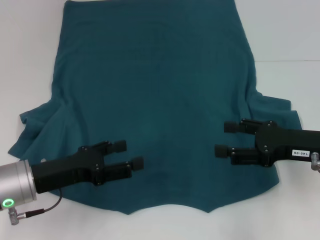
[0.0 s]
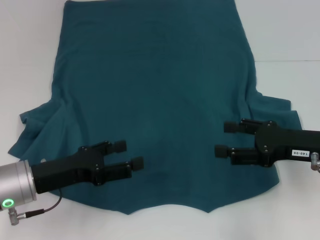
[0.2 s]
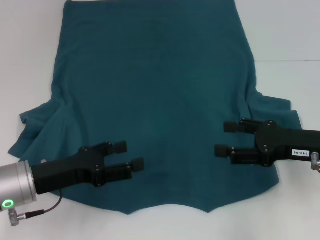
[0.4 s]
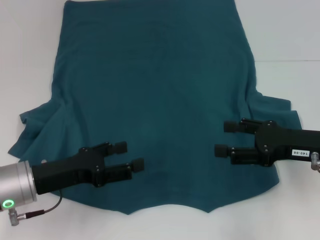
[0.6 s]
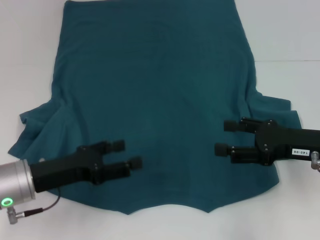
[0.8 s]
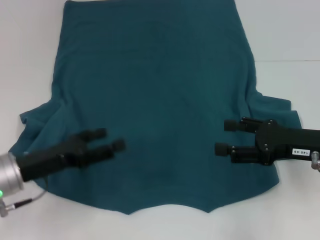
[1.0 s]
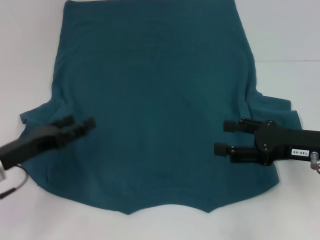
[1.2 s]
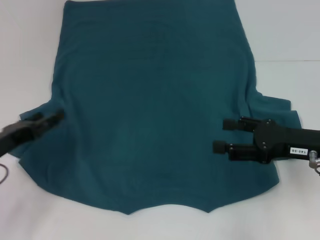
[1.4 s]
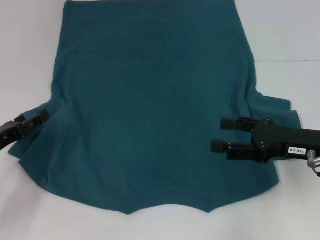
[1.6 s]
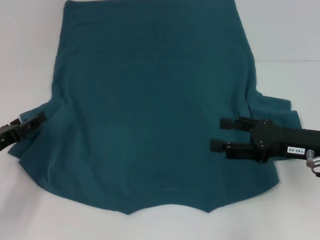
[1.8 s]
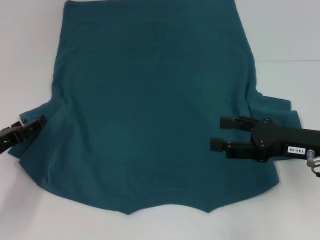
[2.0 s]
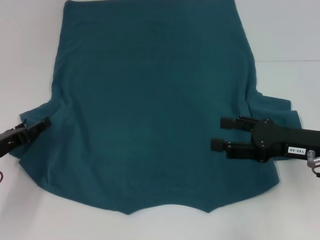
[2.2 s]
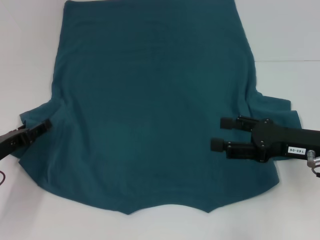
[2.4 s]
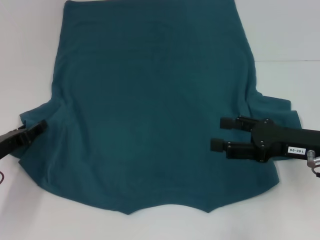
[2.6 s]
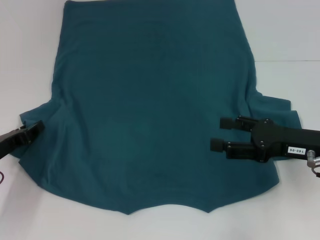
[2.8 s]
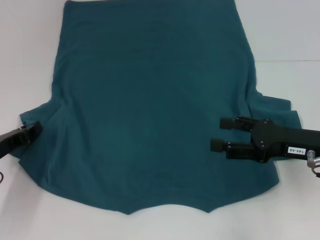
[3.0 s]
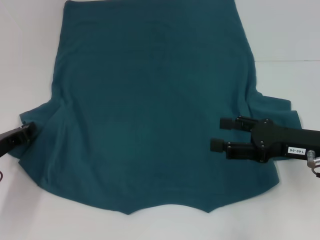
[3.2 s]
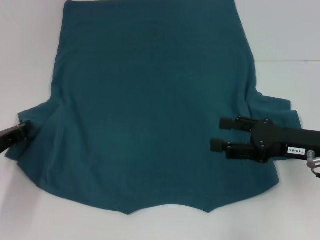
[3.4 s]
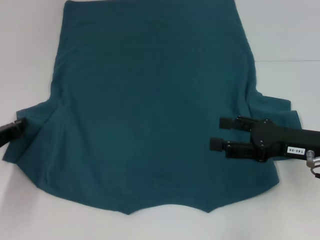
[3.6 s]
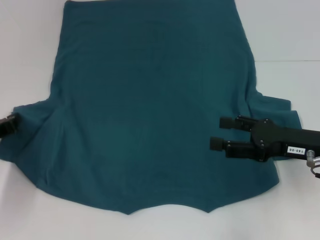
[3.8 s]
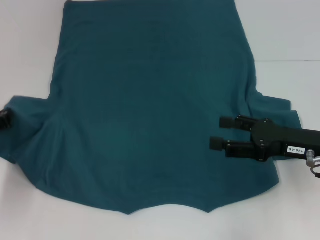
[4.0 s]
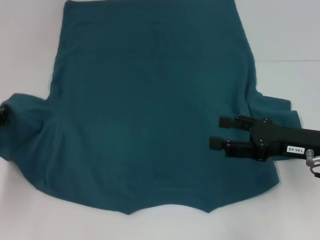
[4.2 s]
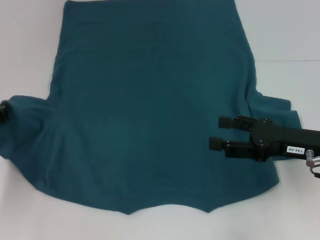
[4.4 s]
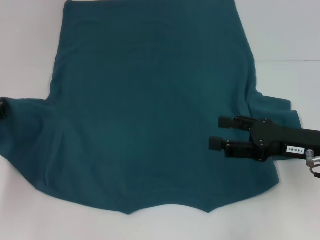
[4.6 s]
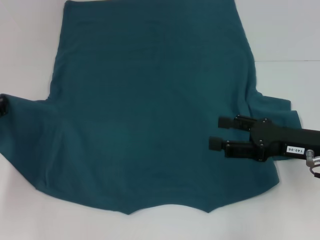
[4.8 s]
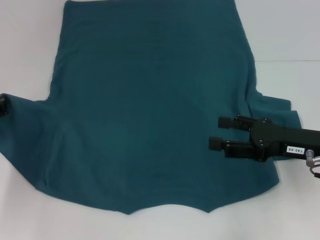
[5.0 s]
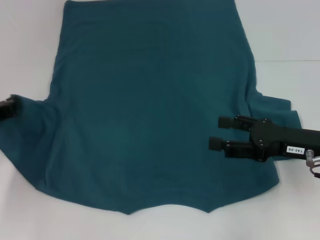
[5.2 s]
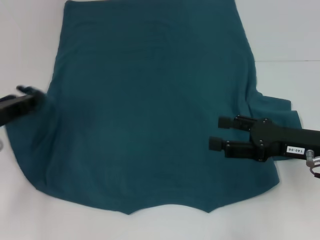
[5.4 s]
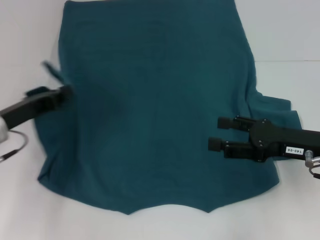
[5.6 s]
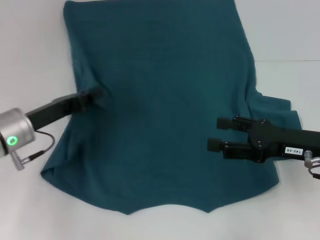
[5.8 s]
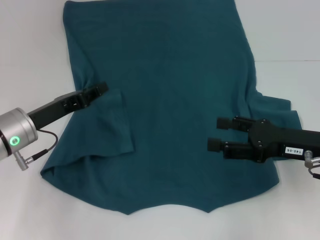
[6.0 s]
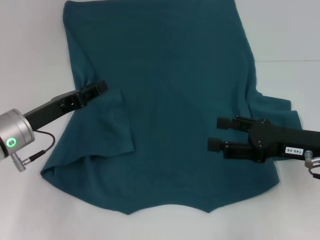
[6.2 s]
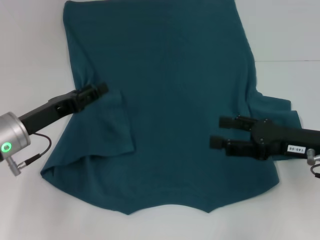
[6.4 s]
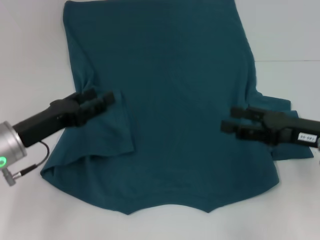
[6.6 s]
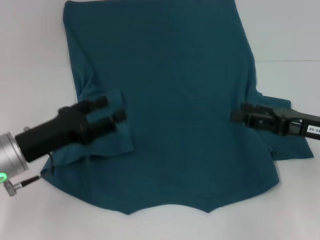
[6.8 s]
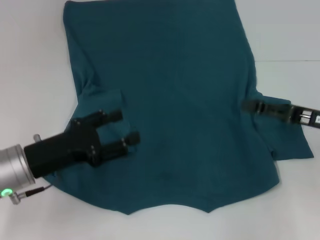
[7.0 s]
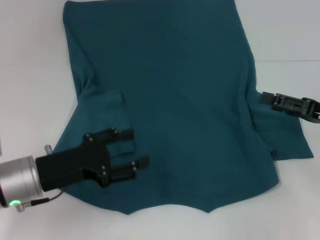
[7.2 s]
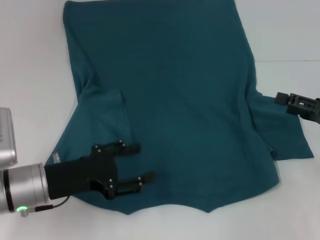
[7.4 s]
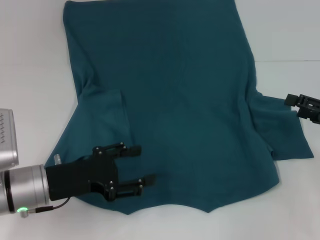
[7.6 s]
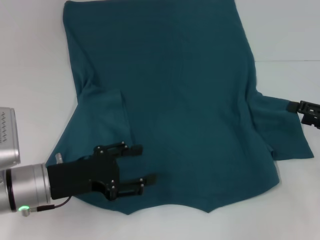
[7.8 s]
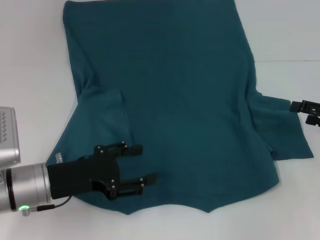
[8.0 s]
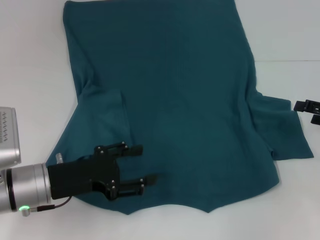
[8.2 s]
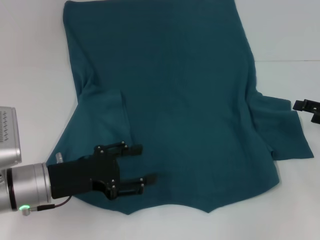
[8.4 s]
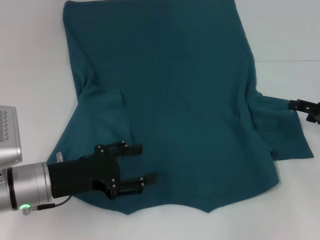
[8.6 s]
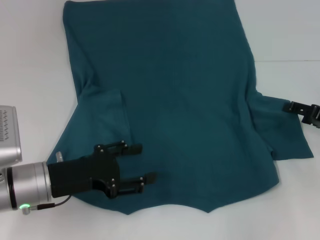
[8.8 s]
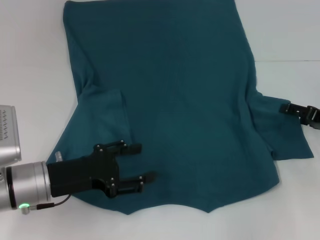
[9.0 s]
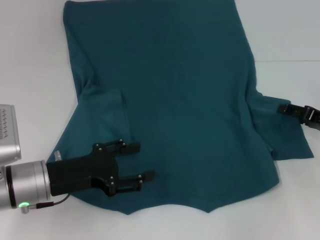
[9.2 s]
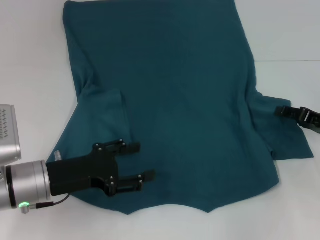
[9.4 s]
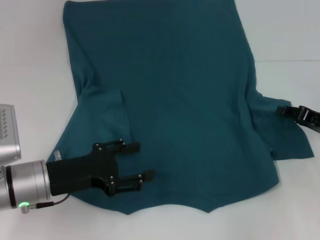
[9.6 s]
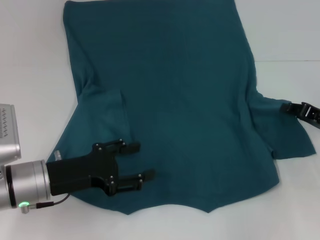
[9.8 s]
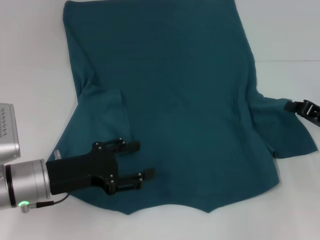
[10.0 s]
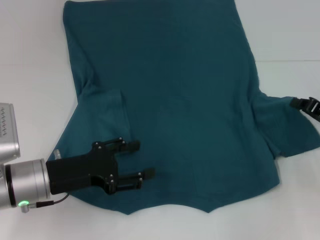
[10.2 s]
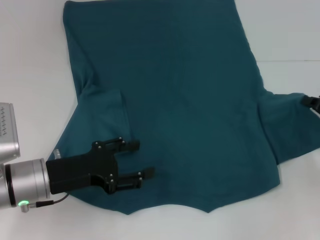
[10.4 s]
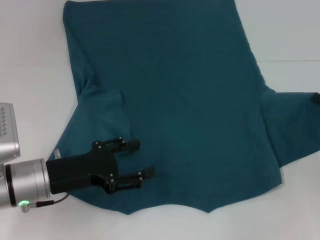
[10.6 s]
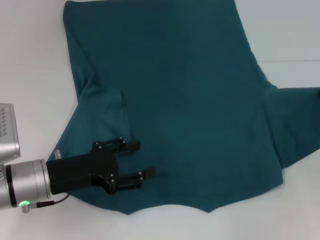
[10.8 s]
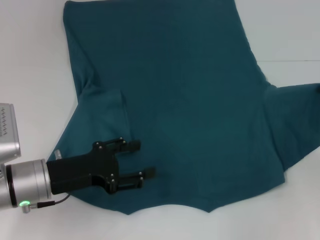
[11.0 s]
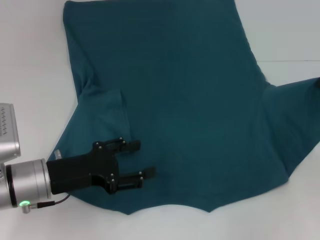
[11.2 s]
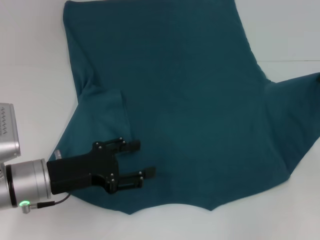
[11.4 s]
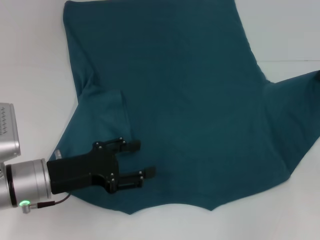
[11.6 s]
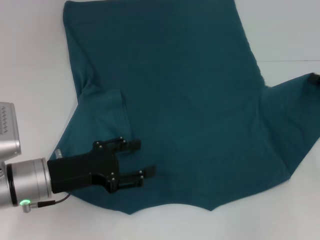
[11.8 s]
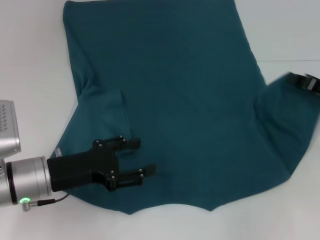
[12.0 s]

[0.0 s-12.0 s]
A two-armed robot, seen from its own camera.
Step, 0.0 to 6.2 s: Fold the bottom left sleeve with your left hand.
0.0 to 1.6 s: The left gripper goes roughly 10 cm to the left.
1.6 to 3.0 s: The left gripper closes its fingers.
3.0 to 4.4 s: The left gripper closes its fingers.
4.4 to 6.0 s: The left gripper shifts roughly 10 cm to the right.
6.0 to 7.6 s: The left gripper travels backward by some 5 cm, and opens its fingers, while the right gripper shifts roughly 10 cm to the right.
7.6 to 9.0 s: The grippers move only a little.
9.0 to 10.4 s: The right gripper closes its fingers.
10.4 to 12.0 s: The right gripper shifts by roughly 5 cm.

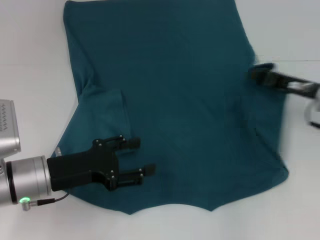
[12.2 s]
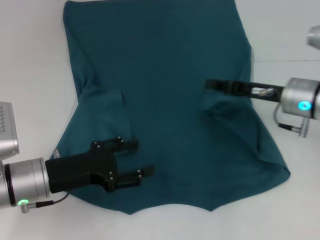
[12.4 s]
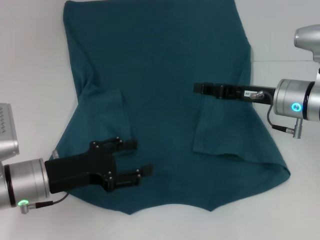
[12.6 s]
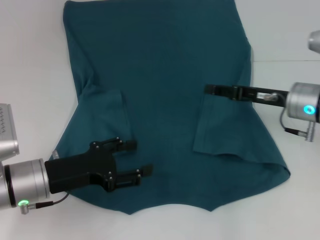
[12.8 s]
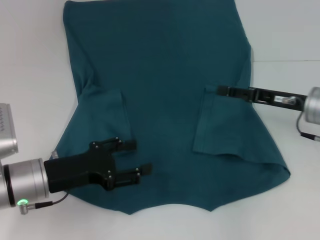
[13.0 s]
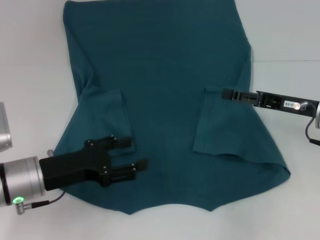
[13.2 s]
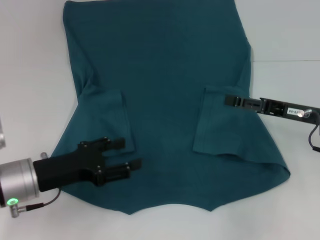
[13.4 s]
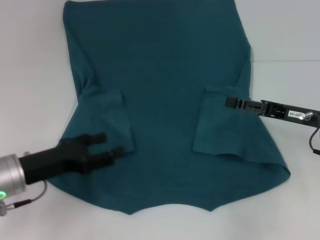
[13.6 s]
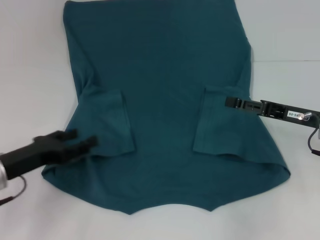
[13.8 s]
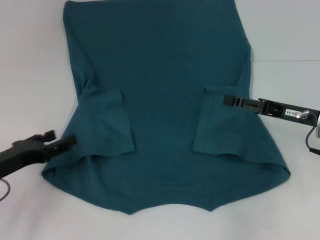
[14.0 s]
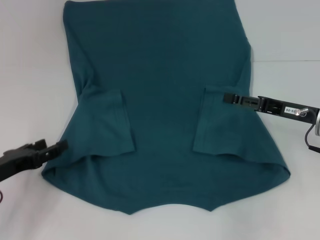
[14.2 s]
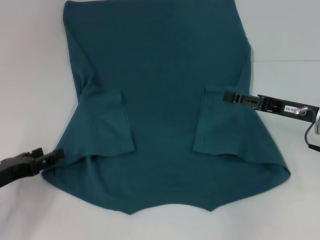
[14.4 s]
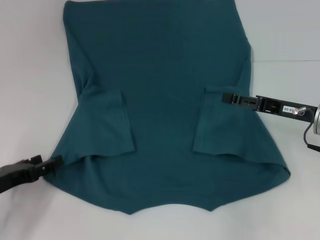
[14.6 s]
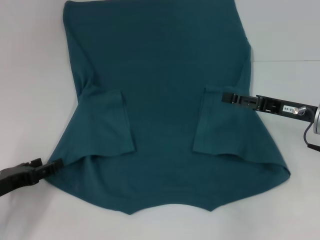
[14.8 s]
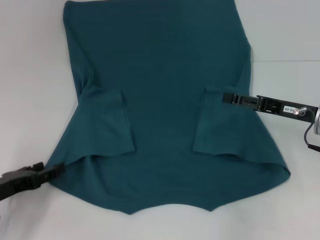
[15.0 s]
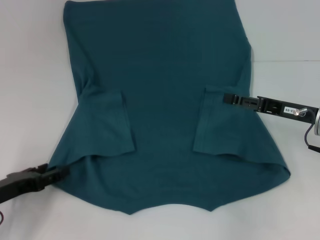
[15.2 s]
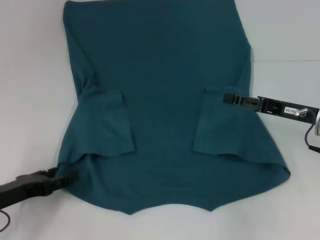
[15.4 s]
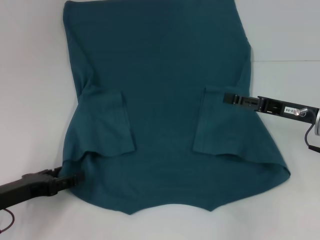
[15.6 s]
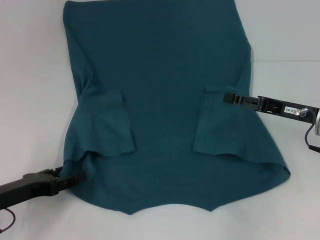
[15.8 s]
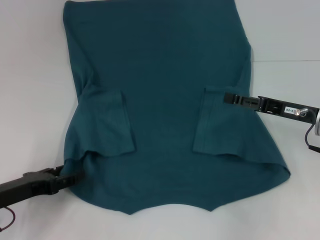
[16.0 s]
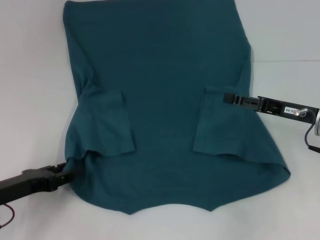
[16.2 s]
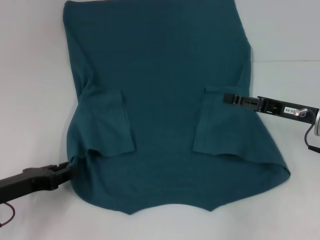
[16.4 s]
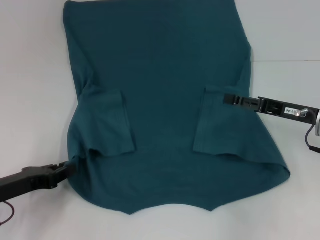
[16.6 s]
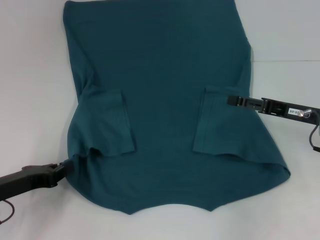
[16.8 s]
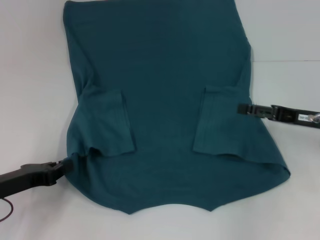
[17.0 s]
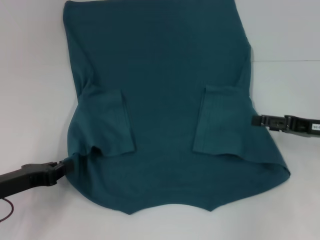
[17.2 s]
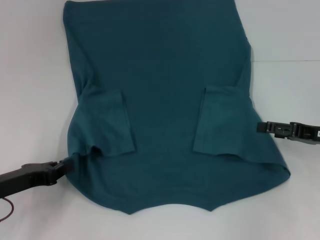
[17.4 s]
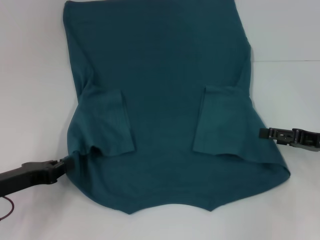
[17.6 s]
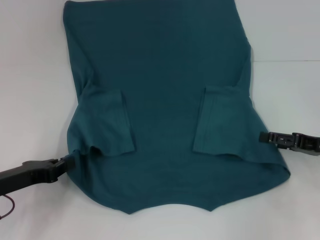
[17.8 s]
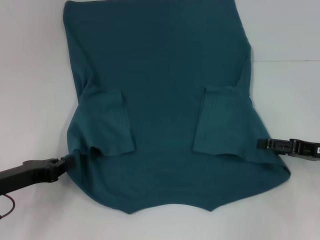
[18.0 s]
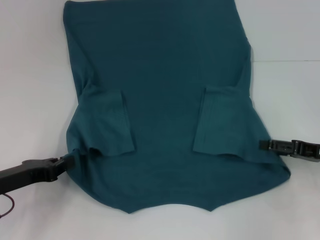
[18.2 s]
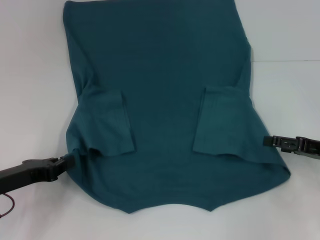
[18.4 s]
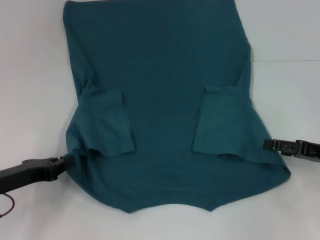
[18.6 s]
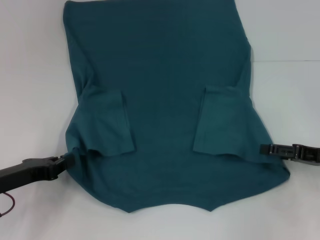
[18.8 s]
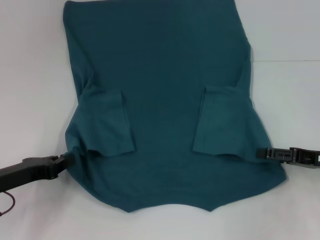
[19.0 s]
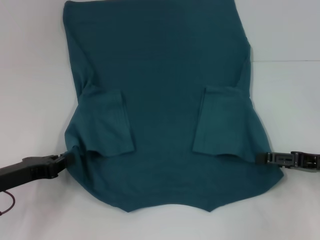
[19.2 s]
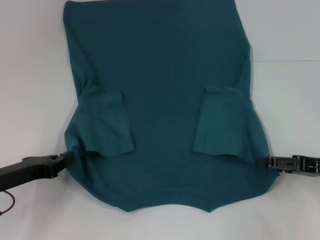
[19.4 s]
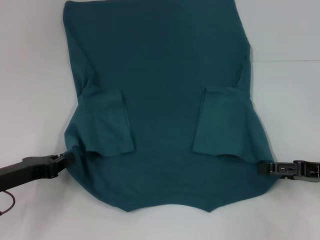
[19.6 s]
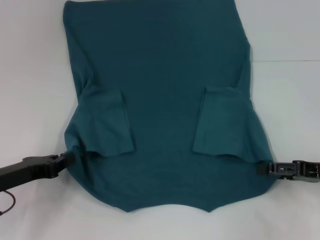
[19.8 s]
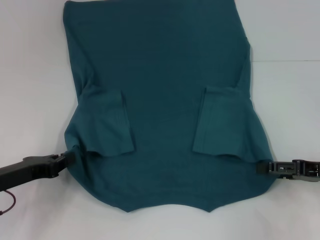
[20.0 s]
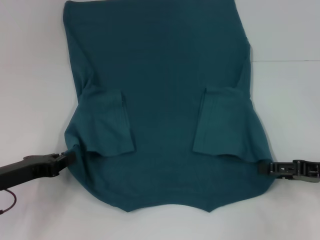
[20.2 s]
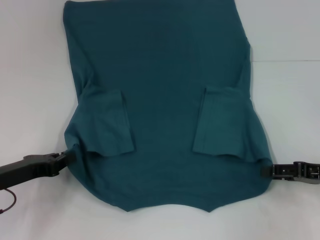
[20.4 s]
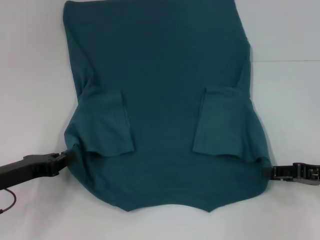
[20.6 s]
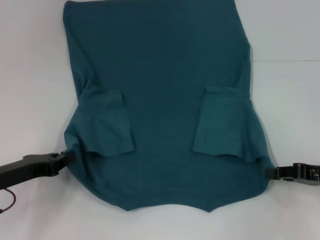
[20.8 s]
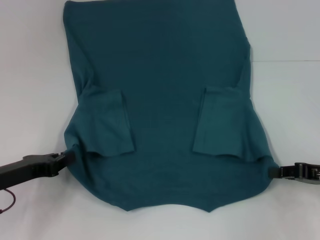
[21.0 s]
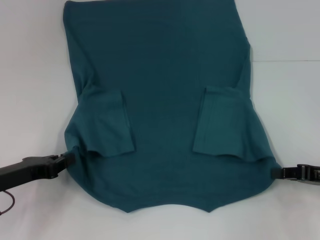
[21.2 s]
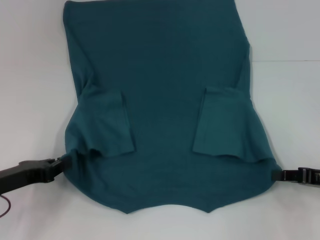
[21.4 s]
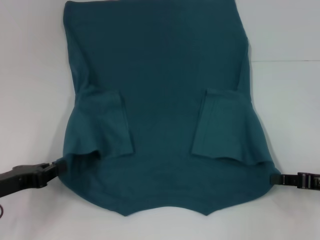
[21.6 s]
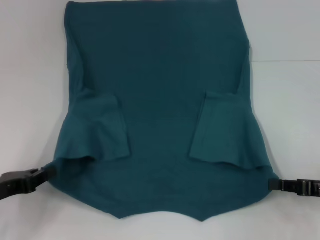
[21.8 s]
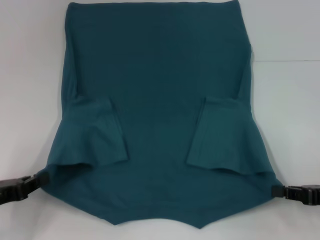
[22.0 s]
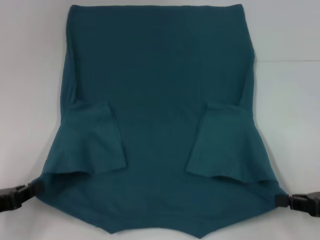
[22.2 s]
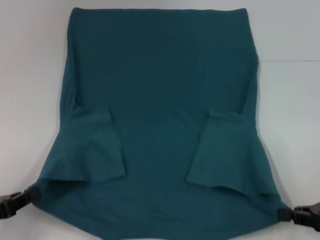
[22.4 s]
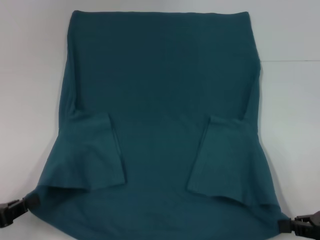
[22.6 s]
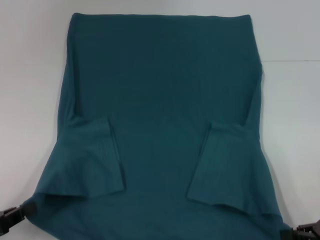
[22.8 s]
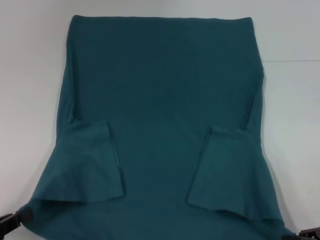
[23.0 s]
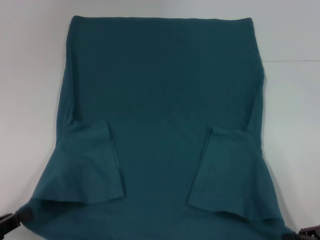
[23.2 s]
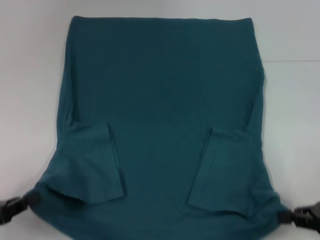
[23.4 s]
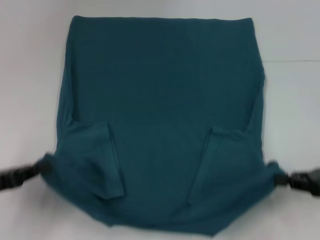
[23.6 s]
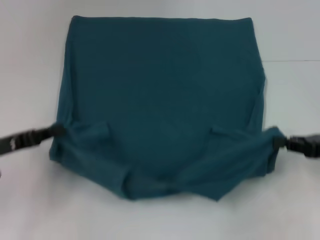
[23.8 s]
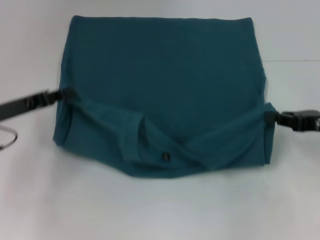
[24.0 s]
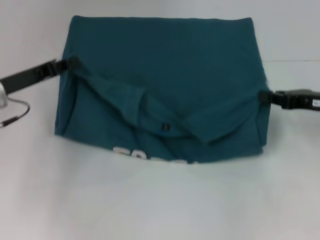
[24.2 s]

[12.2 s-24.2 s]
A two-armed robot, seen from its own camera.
Step, 13.2 to 16.8 s: Grab the bottom left corner with your left hand.
Step, 17.0 to 20.8 s: Grab the bottom right corner with your right hand.
12.2 to 13.8 s: The right gripper opens, while the left gripper shifts approximately 5 cm to the left.
13.8 to 15.2 s: The left gripper changes place by approximately 5 cm.
15.2 to 16.6 s: The left gripper closes its fingers.
16.6 to 18.2 s: The left gripper closes its fingers. Meanwhile the right gripper moves to the right, roughly 5 cm.
18.2 to 19.8 s: The grippers make only small movements.
19.8 to 21.2 s: The right gripper closes its fingers.
21.2 to 22.6 s: Both grippers move backward, about 10 cm.
22.6 to 24.2 s: The right gripper is displaced forward and upward by roughly 15 cm; the left gripper moves forward, some 20 cm.
